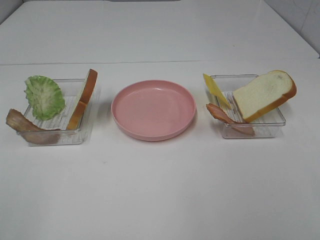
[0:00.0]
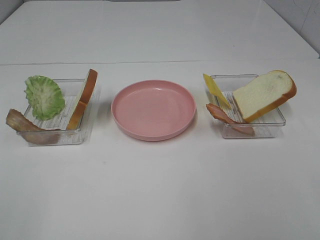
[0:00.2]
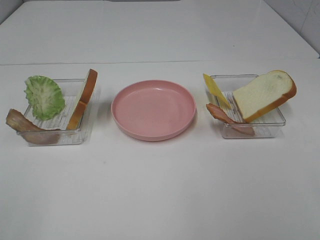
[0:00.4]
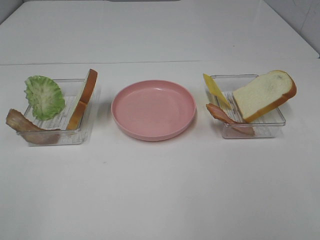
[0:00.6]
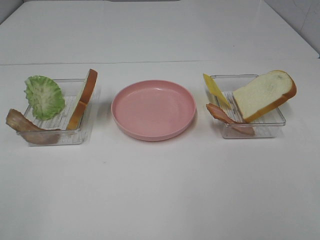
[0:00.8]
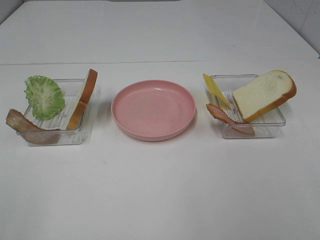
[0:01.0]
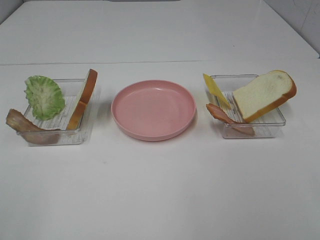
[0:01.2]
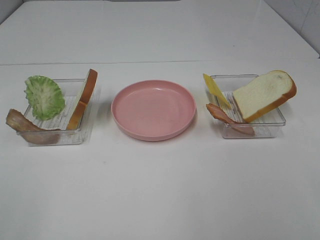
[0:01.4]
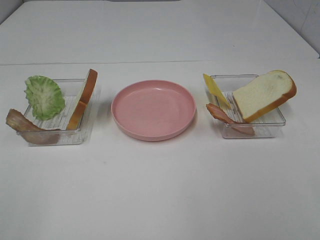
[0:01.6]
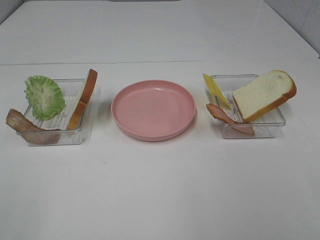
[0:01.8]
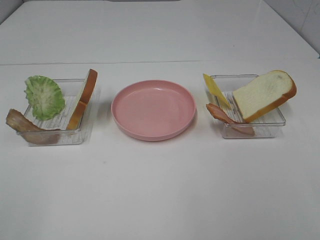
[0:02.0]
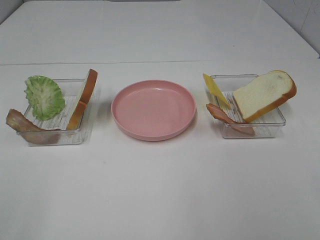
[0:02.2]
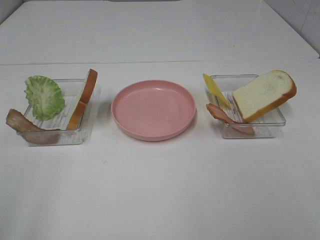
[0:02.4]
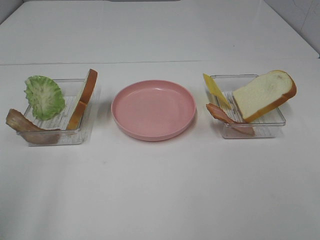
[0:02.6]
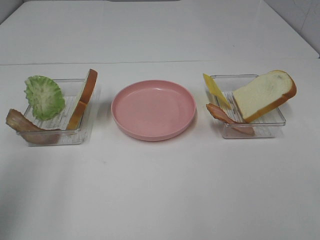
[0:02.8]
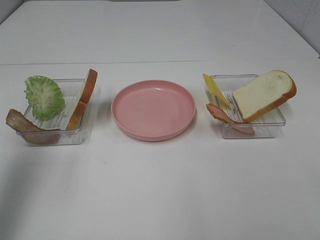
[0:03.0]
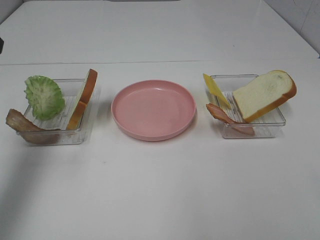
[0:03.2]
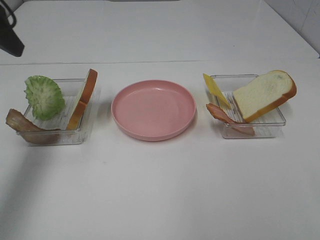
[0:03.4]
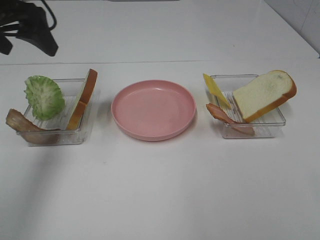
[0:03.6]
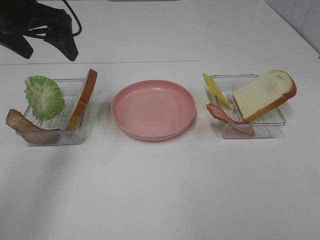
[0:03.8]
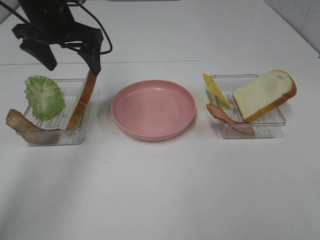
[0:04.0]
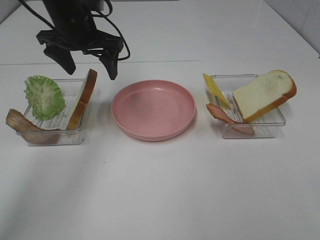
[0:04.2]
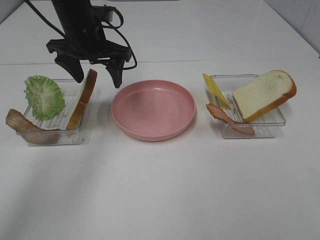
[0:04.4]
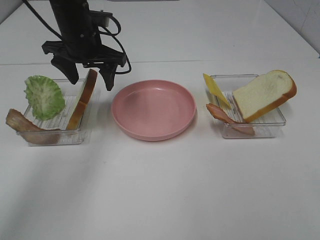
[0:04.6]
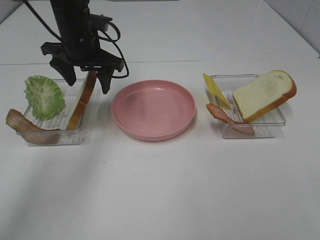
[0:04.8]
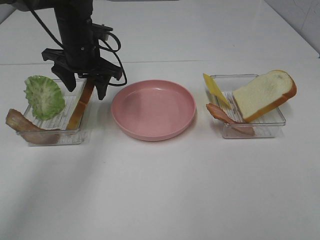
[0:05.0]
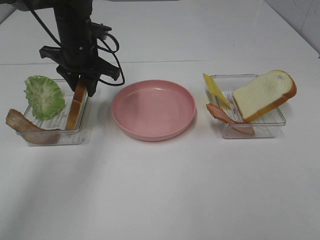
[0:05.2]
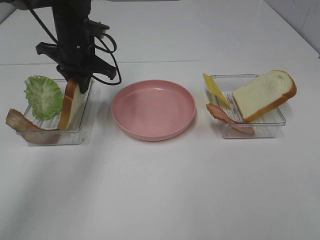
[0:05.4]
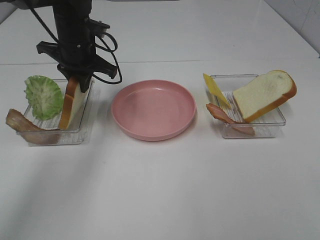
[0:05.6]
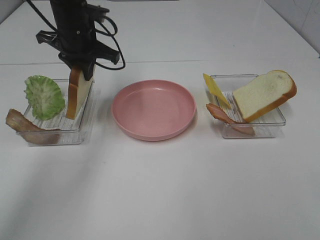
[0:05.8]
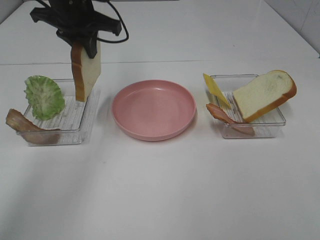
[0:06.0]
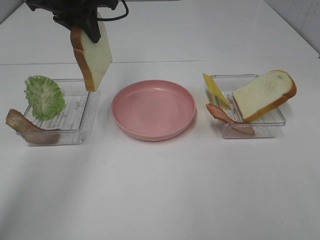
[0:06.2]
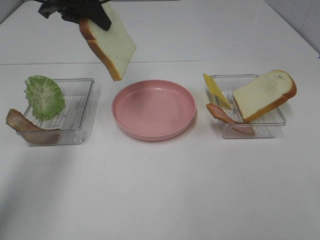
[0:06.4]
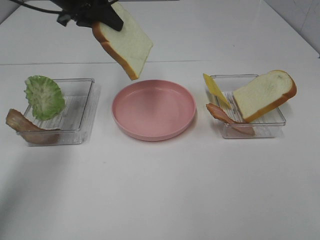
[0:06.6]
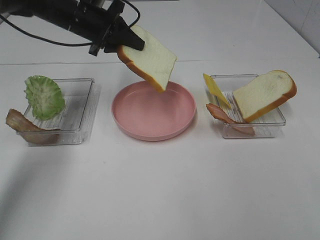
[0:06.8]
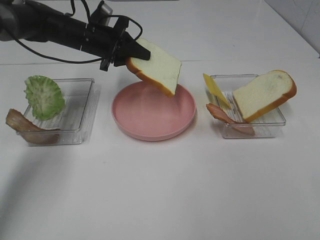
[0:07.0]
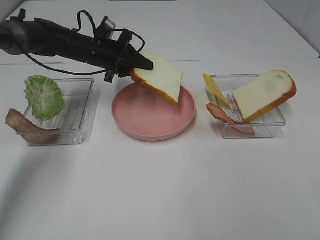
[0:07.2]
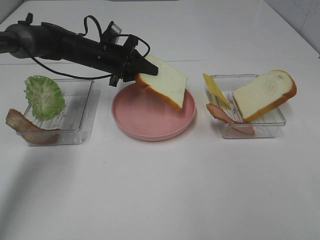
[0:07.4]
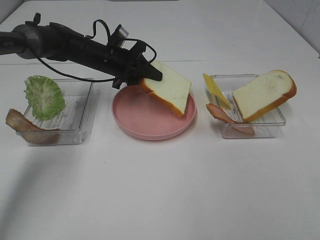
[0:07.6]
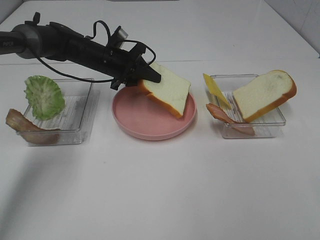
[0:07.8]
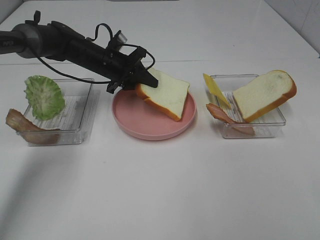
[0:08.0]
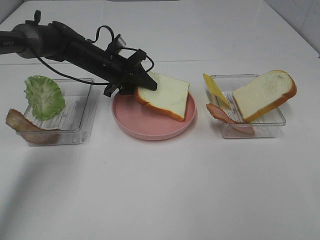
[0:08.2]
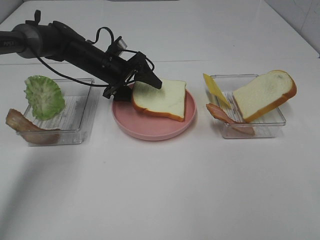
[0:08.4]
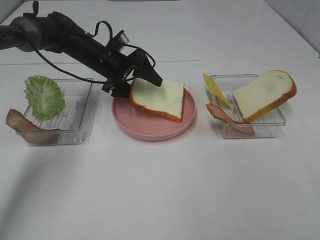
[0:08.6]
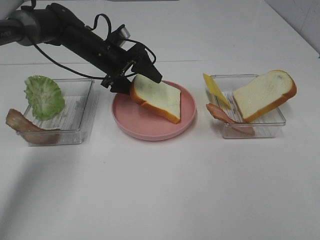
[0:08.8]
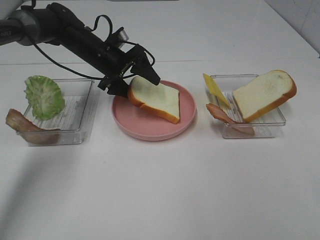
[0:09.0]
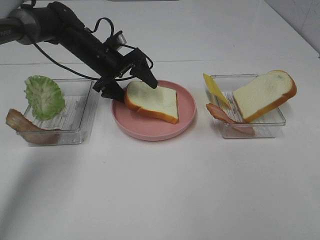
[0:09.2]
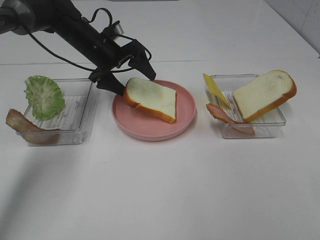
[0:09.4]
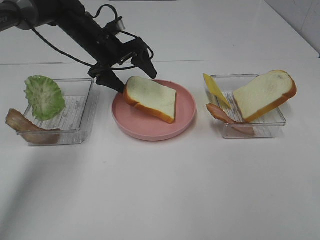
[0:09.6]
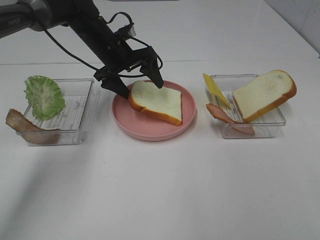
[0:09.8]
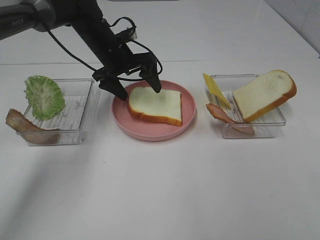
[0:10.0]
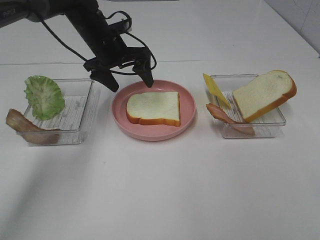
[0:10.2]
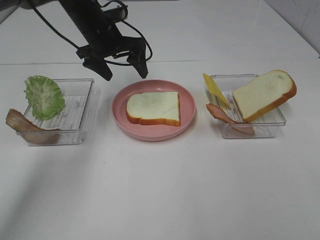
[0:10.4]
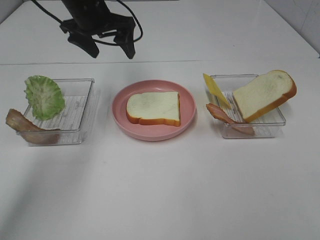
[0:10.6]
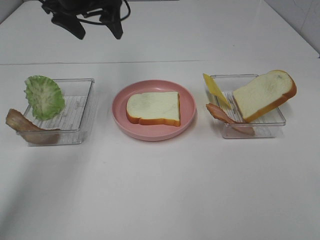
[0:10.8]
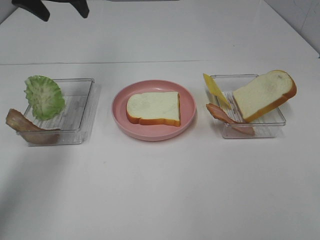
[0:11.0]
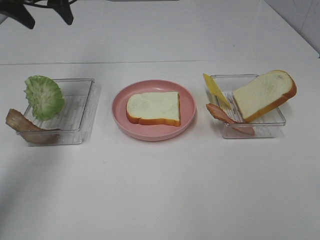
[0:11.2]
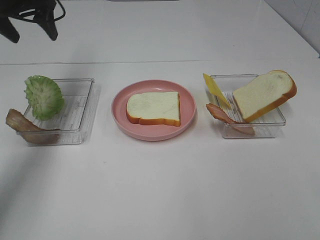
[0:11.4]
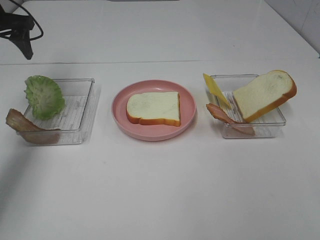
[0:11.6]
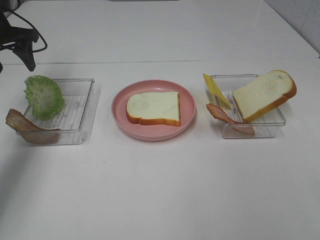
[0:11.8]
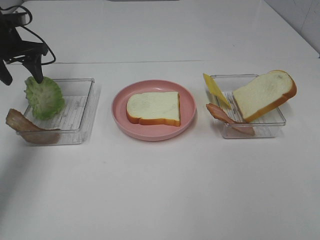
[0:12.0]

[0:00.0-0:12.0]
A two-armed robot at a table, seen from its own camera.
Task of the whole recording: Make sandwiches.
Step, 0:00.0 to 0:05.4: Left hand:grab the bread slice.
Step, 0:05.6 to 0:10.0: Left hand:place the bread slice on the plate.
0:00.0 to 0:01.6: Both grippers stay put.
0:01.6 to 0:03.0: The left gripper heads forward, covering roughly 20 cm.
0:03.0 to 0:04.4: The left gripper shifts about 30 cm forward, to the right and downward.
0:04.4 to 0:06.0: The left gripper goes about 5 cm upward, and closes.
0:06.0 to 0:07.6: The left gripper shifts approximately 15 cm downward.
0:07.6 to 0:09.0: The left gripper opens up.
0:09.0 to 0:10.4: The left gripper is displaced upward by about 10 cm.
0:10.4 to 0:12.0: The left gripper heads to the left, covering roughly 20 cm.

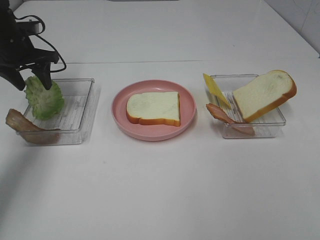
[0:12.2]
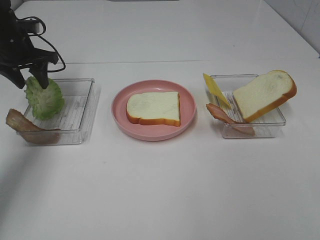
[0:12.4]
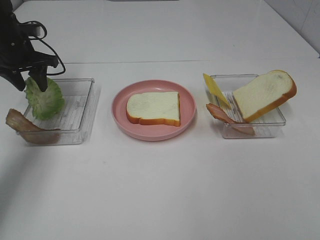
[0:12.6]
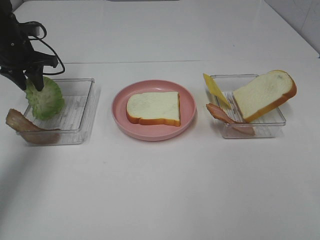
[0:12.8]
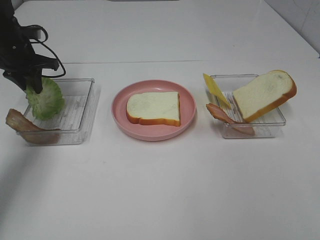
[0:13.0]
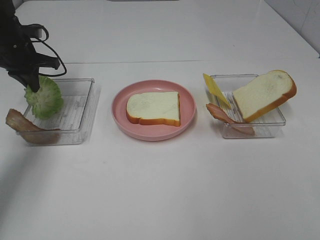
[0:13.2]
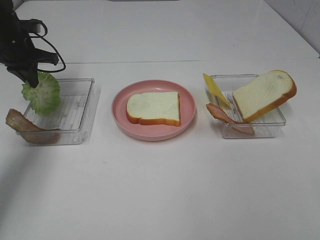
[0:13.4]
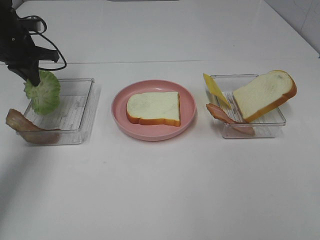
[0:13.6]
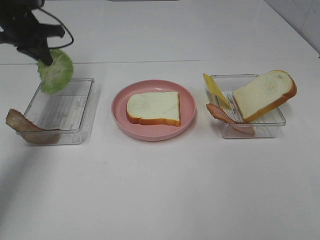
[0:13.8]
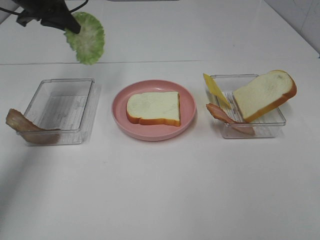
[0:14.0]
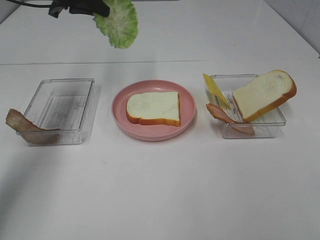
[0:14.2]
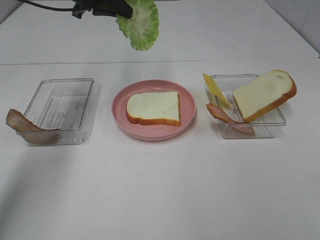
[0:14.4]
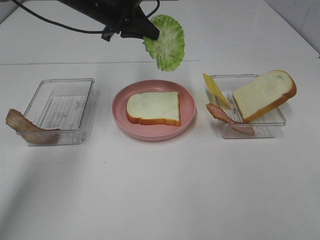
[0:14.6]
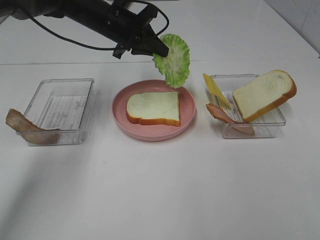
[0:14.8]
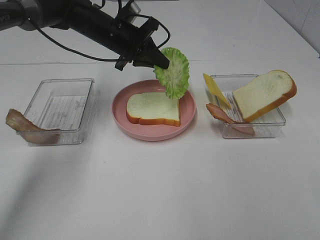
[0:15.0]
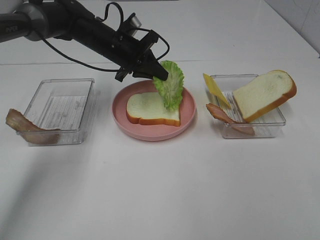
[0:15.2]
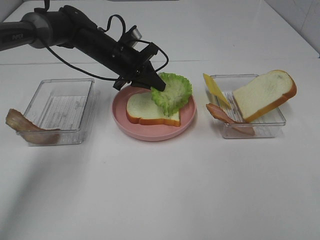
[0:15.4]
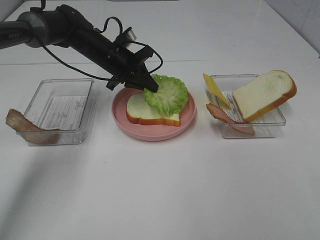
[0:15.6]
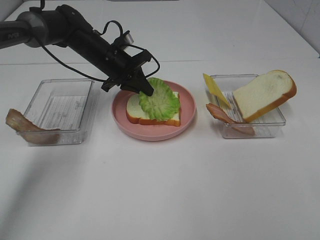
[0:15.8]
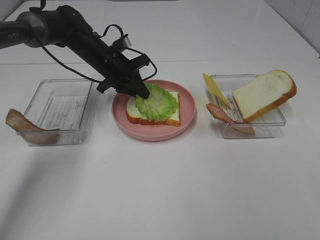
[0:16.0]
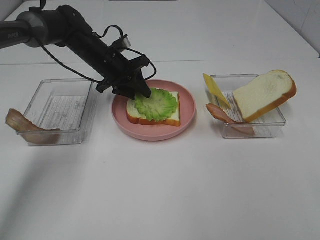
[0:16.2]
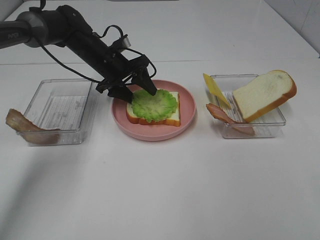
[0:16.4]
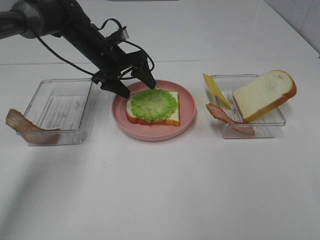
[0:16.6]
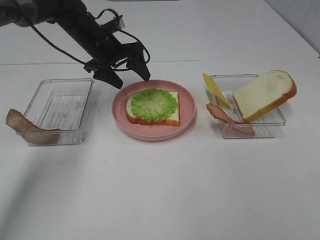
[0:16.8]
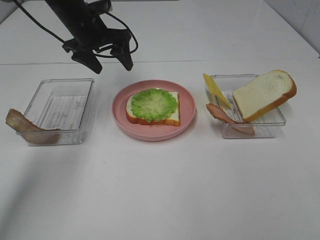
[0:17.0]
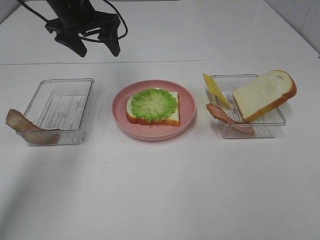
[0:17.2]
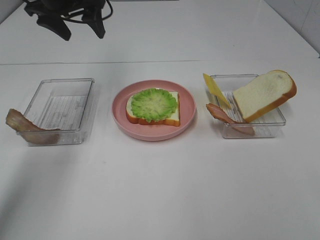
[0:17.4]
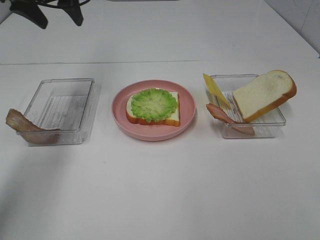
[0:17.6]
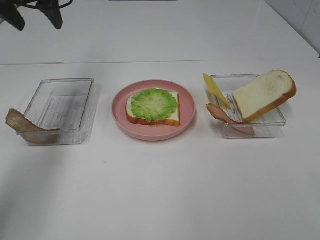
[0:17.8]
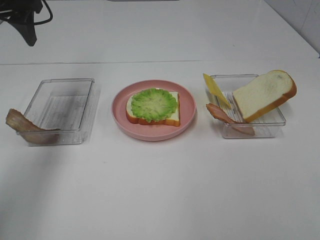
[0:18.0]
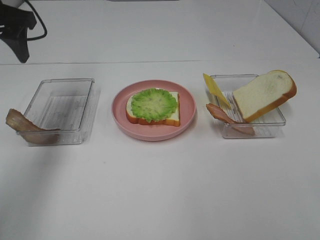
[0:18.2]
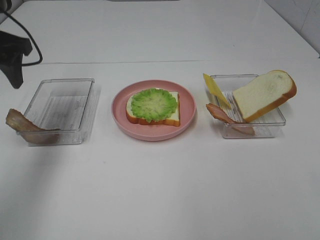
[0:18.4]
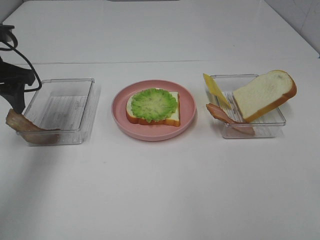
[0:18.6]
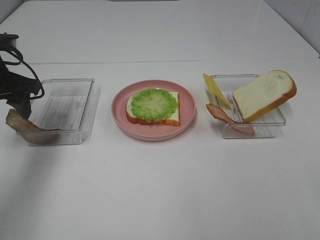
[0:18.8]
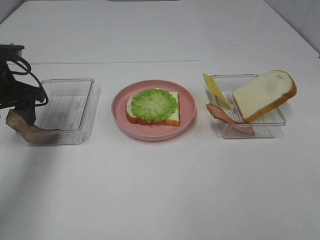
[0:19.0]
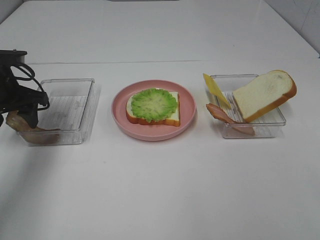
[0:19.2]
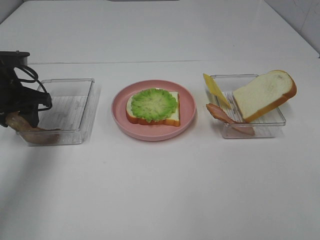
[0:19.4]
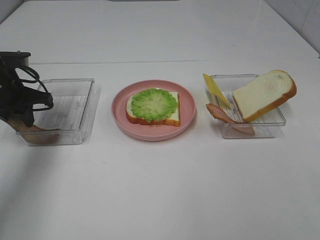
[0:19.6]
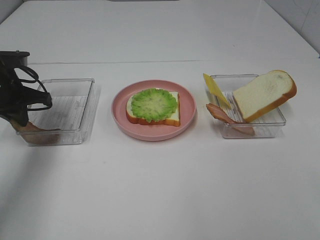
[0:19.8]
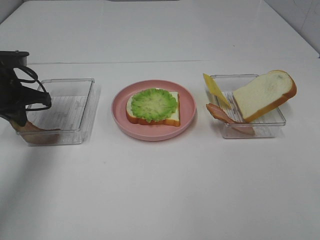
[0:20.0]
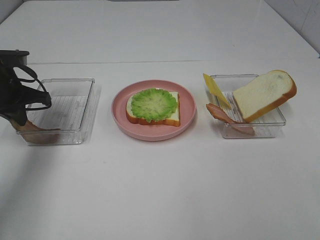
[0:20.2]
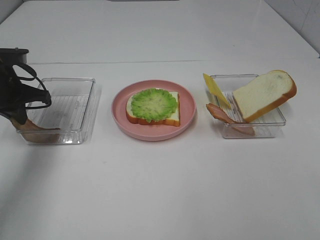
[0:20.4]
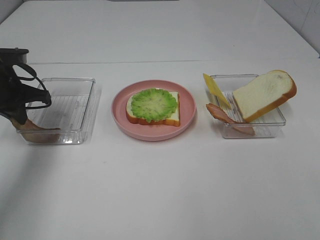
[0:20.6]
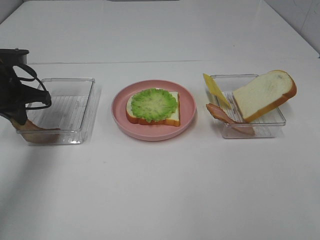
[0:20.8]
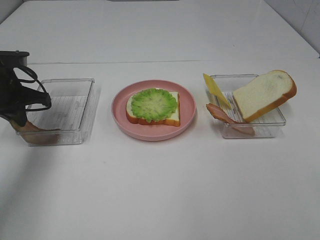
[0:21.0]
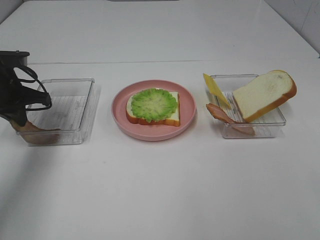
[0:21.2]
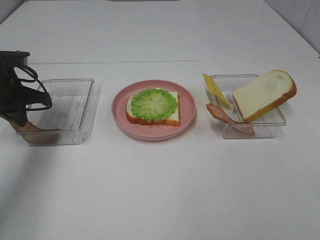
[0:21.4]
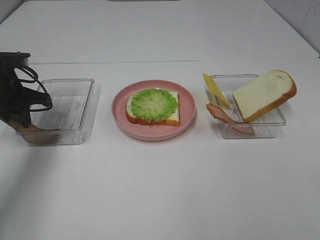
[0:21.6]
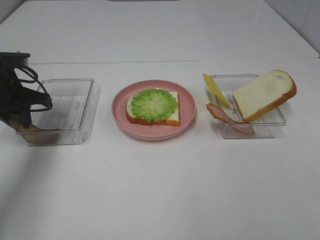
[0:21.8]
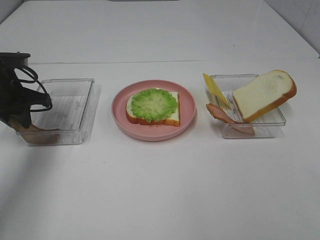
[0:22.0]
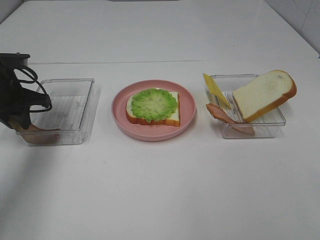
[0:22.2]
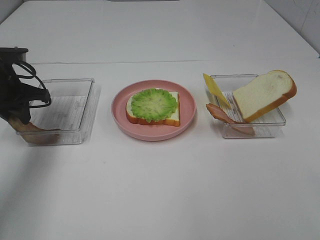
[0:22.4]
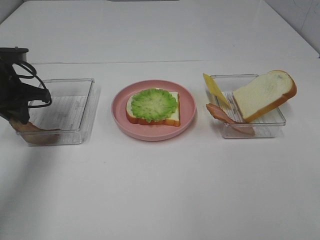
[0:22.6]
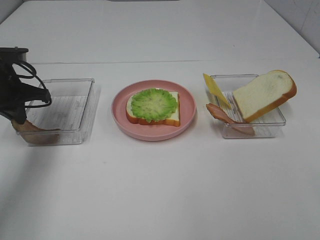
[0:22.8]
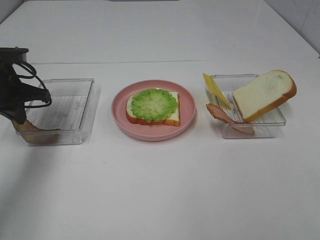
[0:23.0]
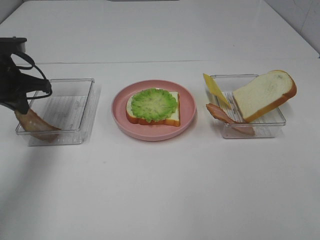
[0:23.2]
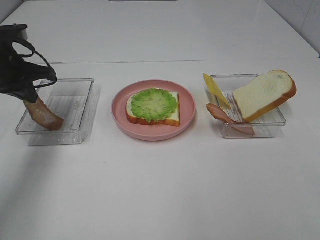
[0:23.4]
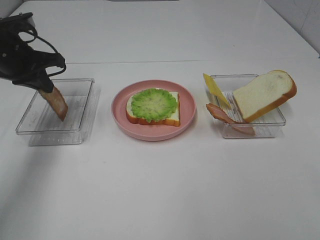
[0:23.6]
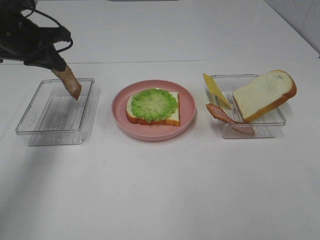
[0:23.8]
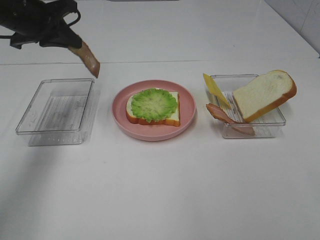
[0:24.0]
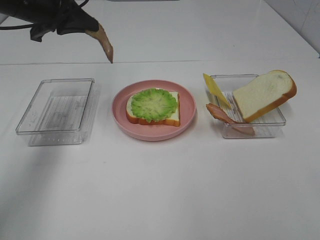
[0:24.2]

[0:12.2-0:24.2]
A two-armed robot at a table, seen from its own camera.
Task of the whole recording: Make sandwiches.
Step, 0:13.6 to 0:16.6: Left hand:place the lettuce slice on the bread slice.
Step, 0:16.8 to 0:19.8: Left hand:grab the bacon.
0:12.2 to 0:13.8: The left gripper changes place by some 5 cm, and closes its fingers.
0:13.8 to 0:15.2: The left gripper shifts approximately 20 cm to the right and downward.
0:15.2 to 0:16.6: The left gripper opens its fingers.
0:16.6 to 0:18.2: The left gripper is displaced upward, to the left and backward by some 25 cm.
0:18.2 to 0:19.8: The left gripper moves downward, about 15 cm, and closes up.
0:19.8 to 0:22.6: Both grippers stay put.
0:22.6 to 0:24.2: The left gripper goes about 10 cm upward and to the right.
